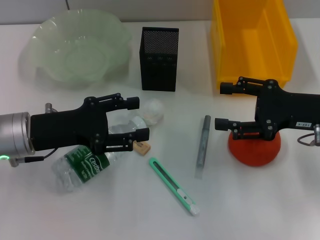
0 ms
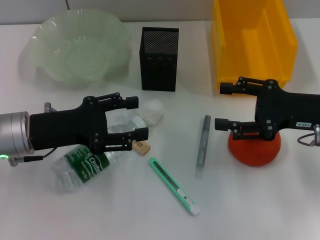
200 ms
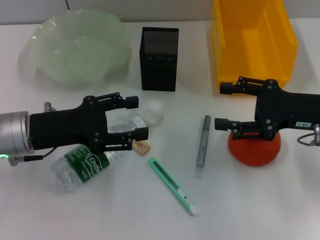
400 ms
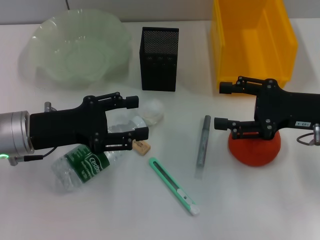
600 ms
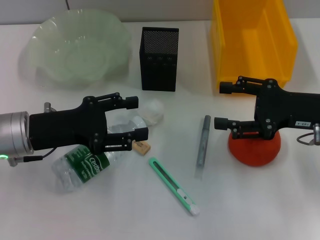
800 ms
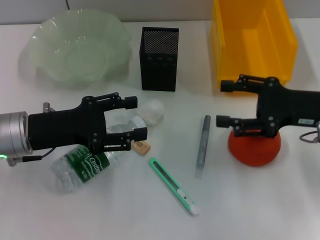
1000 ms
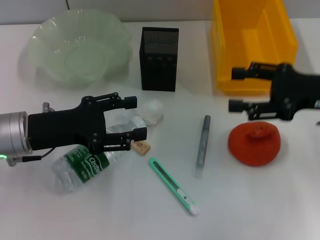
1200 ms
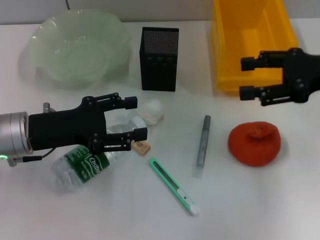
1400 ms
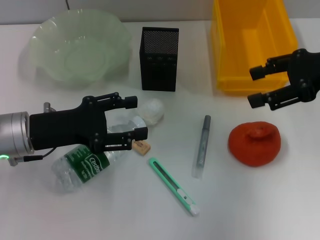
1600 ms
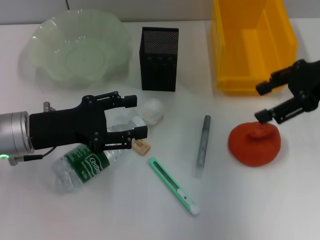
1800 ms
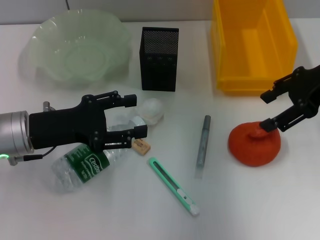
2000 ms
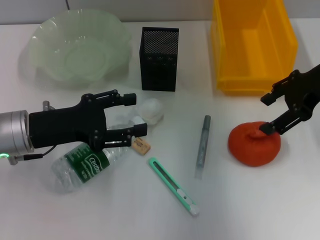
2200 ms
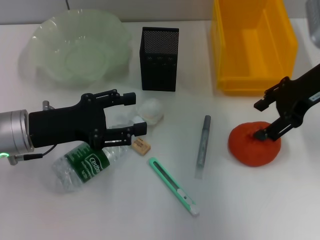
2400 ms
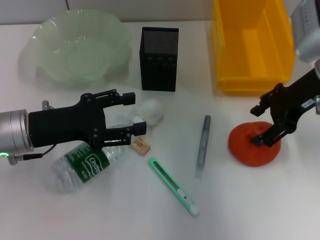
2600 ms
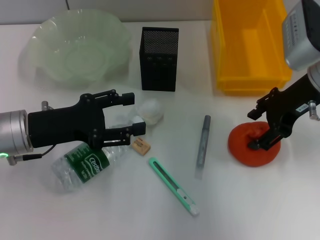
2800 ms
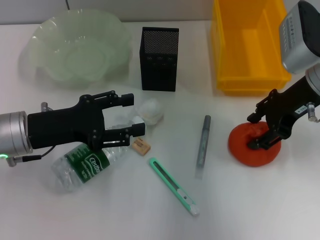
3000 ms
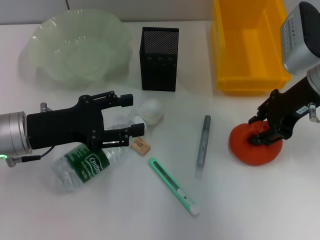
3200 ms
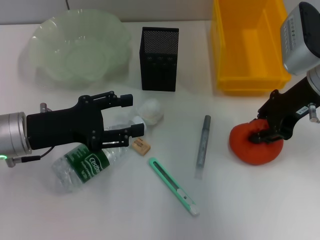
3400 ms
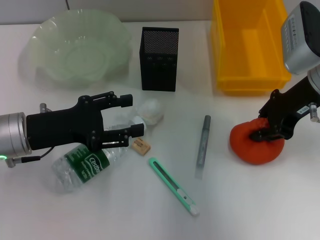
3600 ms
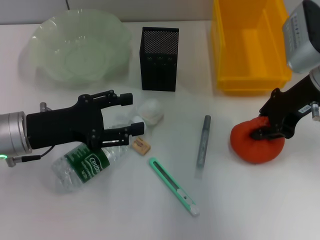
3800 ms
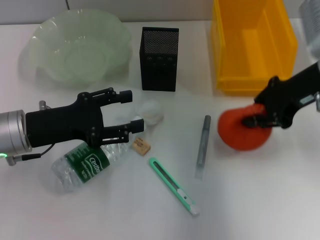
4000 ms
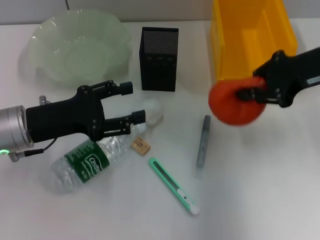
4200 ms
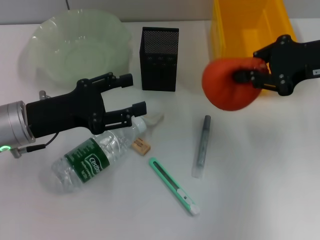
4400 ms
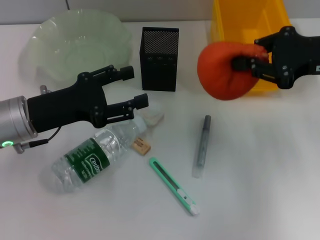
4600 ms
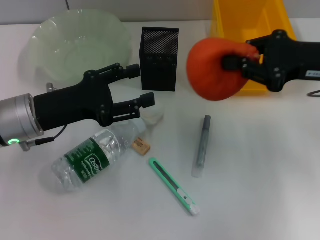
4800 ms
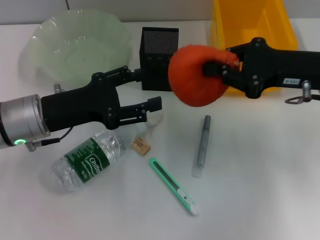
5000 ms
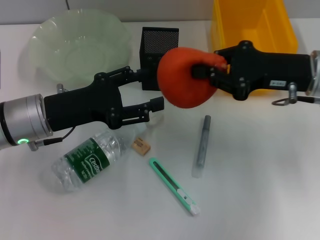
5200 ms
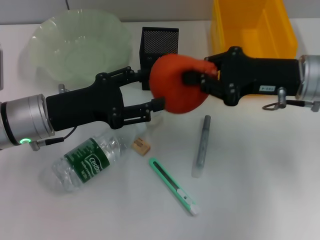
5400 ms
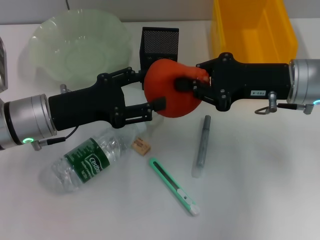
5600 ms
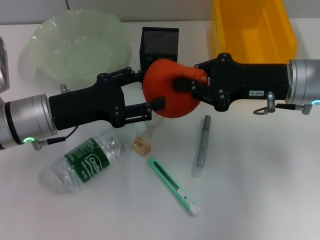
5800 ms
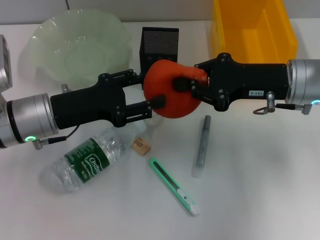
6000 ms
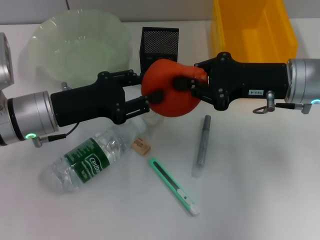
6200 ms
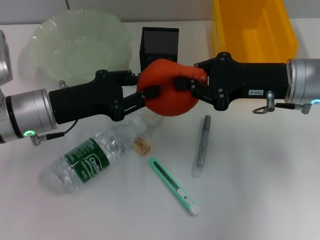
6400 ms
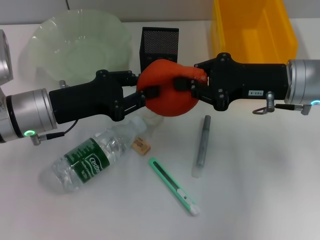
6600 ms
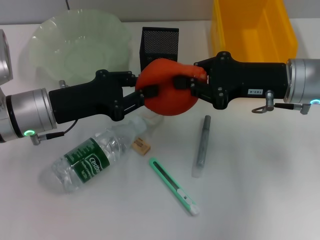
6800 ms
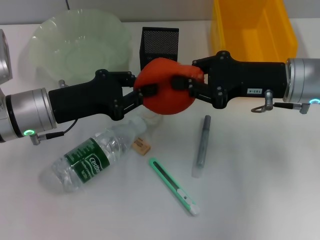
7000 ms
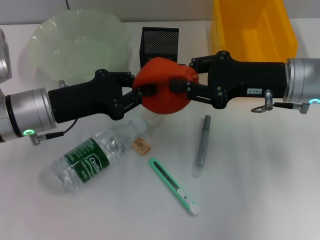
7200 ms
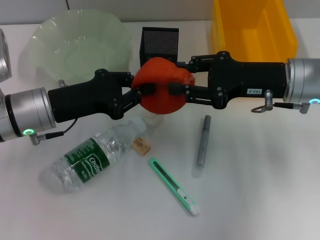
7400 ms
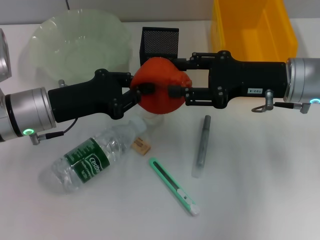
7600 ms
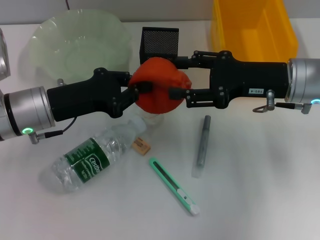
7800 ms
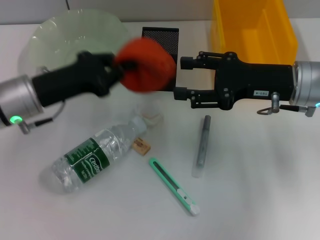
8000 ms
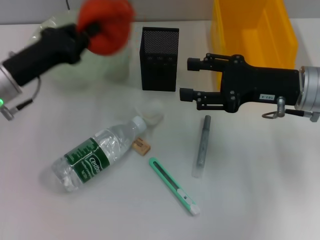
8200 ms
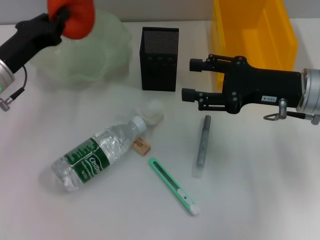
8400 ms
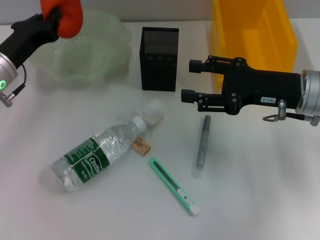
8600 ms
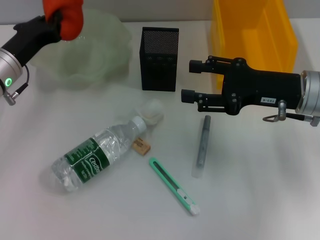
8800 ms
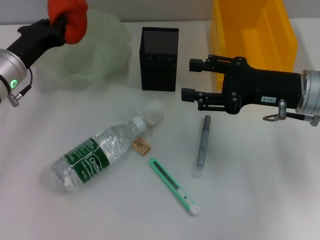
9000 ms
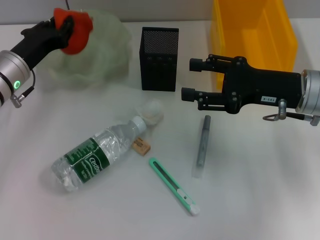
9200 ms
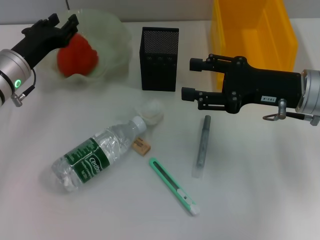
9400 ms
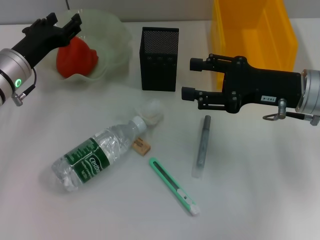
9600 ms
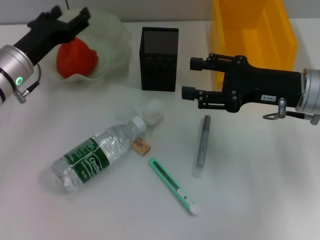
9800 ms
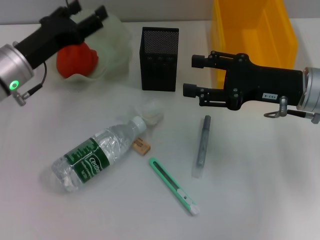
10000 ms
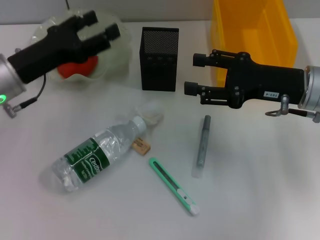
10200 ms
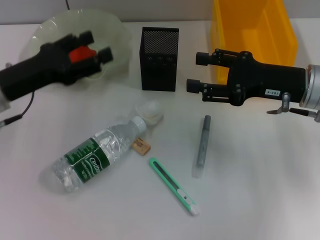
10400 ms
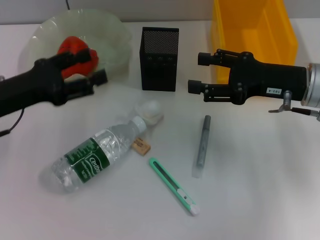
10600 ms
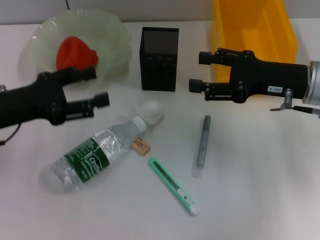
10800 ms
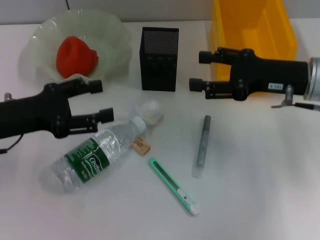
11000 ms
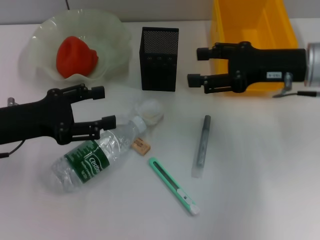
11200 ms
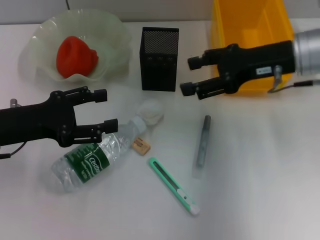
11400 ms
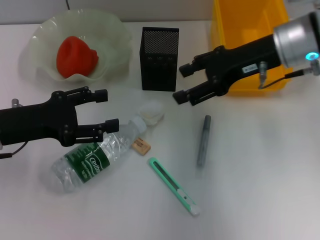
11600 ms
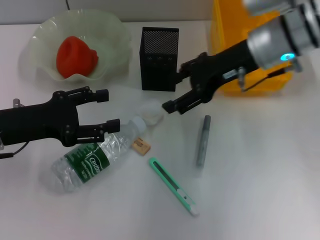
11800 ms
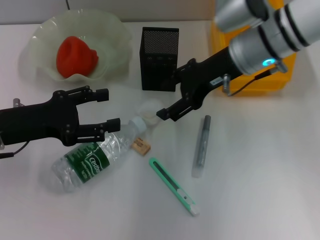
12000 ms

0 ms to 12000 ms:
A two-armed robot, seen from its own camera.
Step, 0 ms to 3600 ms: Grab the orange with the right hand.
Step, 3800 ms to 7800 ms: Pass the orange from the right hand to the left hand.
Step, 8000 ms to 9200 ms: Place the orange into the fruit bowl with the left hand.
0 ms to 1600 ms: The right gripper moves upward, roughly 10 cm.
1600 ms to 3000 ms: The right gripper shifts roughly 5 cm to the left.
3000 ms to 4400 ms: The right gripper moves roughly 5 cm, and closes.
4400 ms to 6000 ms: The right gripper travels to the left and downward by some 10 cm.
6000 ms to 7600 ms: The right gripper opens its fingers. The left gripper closes.
7600 ms to 9000 ms: The right gripper opens. The left gripper travels forward by some 5 cm.
9000 ms to 10400 ms: The left gripper moves backward, roughly 5 cm, and opens its fingers.
10400 ms to 12000 ms: The right gripper goes approximately 15 cm to the left, forward and upward.

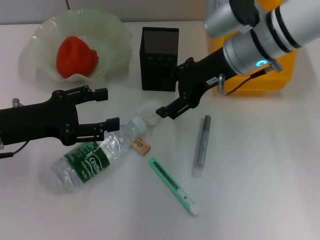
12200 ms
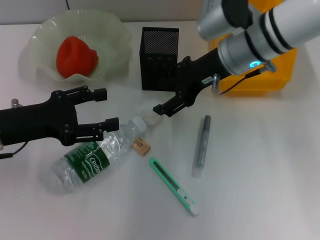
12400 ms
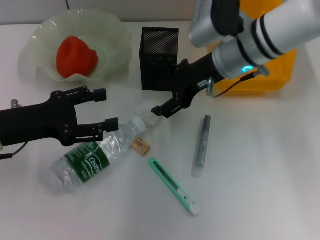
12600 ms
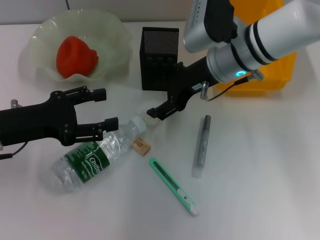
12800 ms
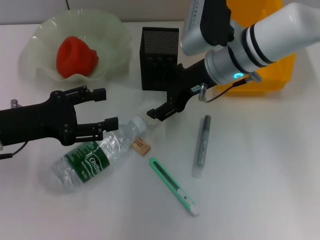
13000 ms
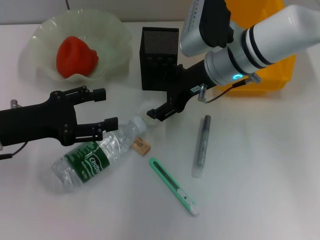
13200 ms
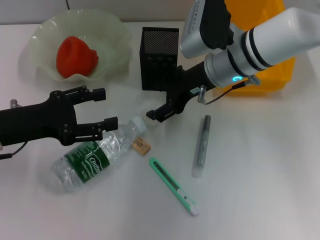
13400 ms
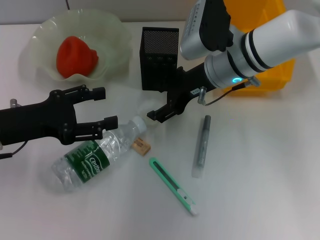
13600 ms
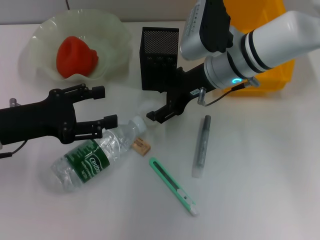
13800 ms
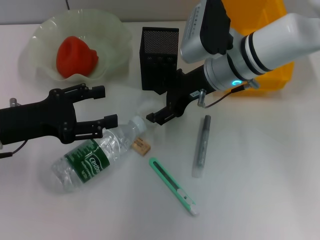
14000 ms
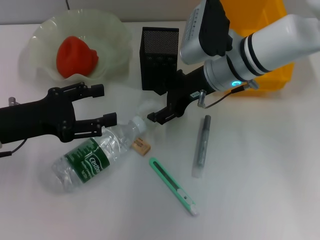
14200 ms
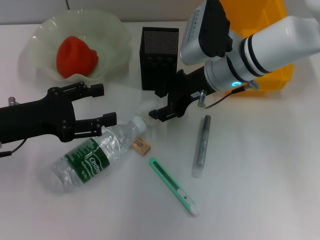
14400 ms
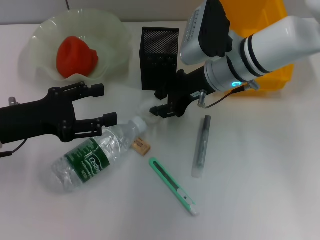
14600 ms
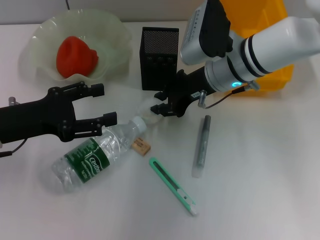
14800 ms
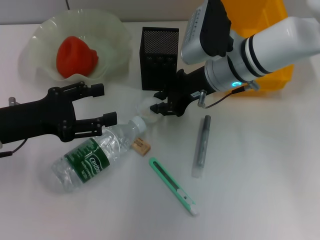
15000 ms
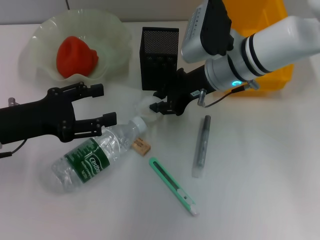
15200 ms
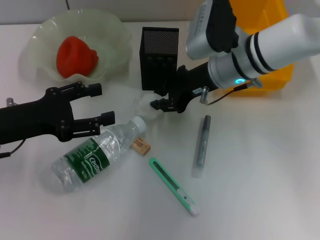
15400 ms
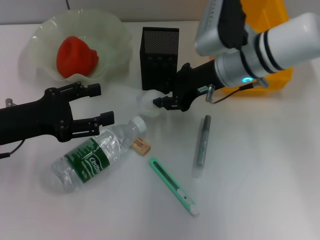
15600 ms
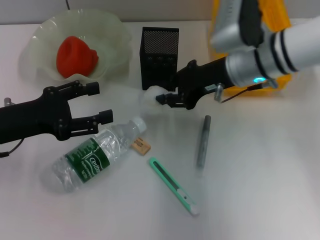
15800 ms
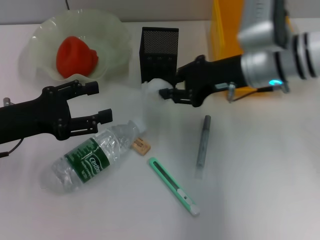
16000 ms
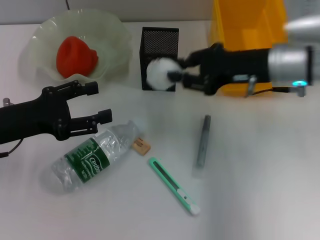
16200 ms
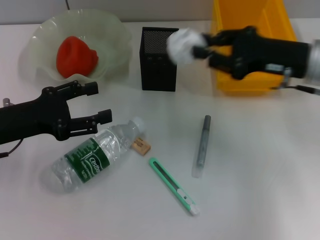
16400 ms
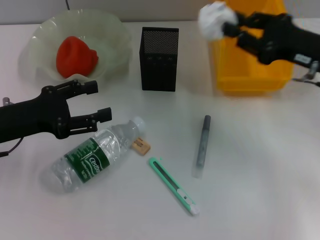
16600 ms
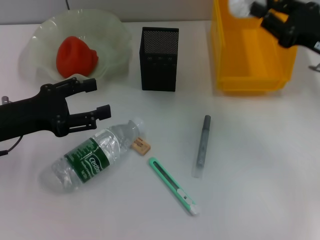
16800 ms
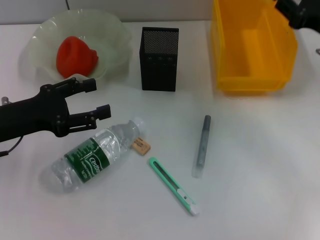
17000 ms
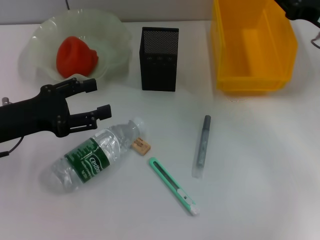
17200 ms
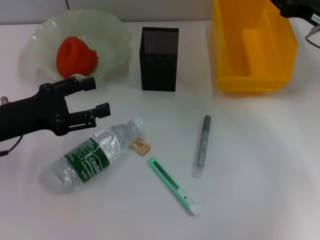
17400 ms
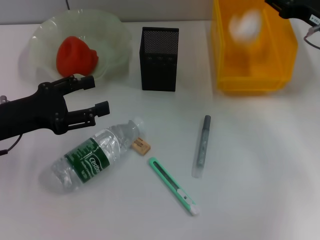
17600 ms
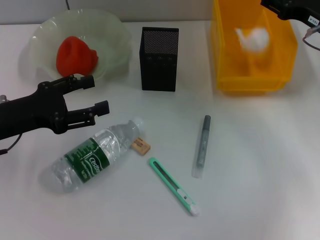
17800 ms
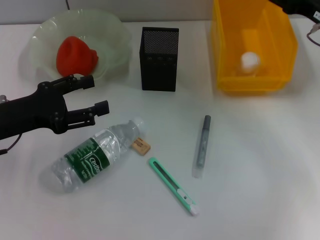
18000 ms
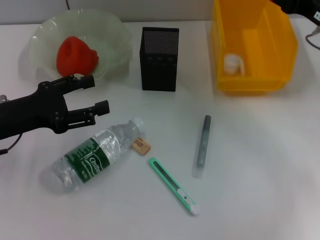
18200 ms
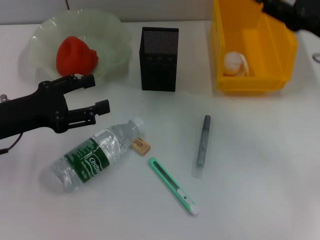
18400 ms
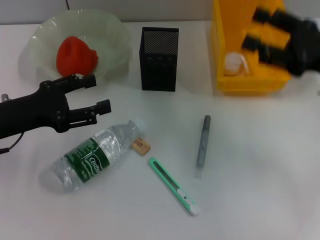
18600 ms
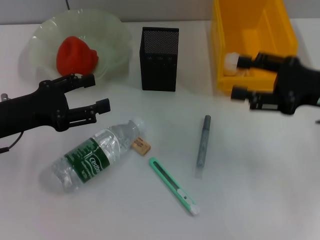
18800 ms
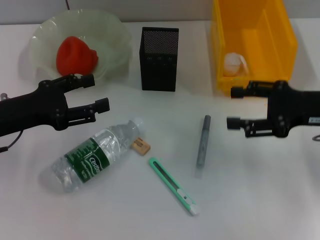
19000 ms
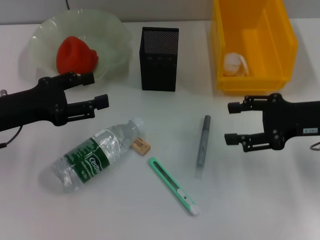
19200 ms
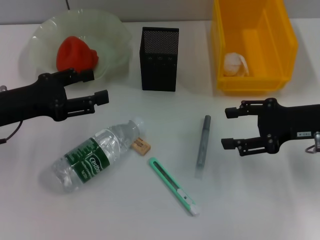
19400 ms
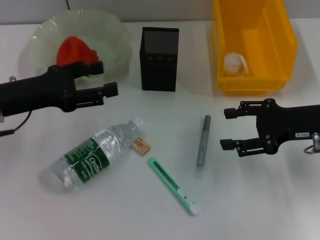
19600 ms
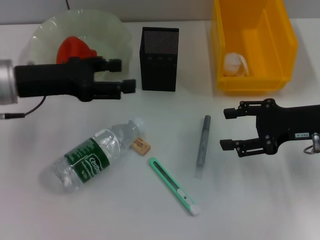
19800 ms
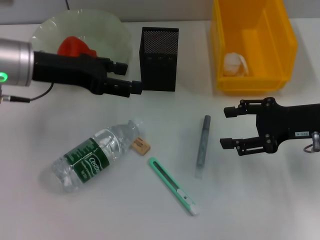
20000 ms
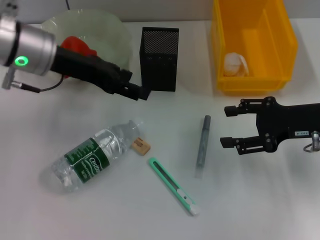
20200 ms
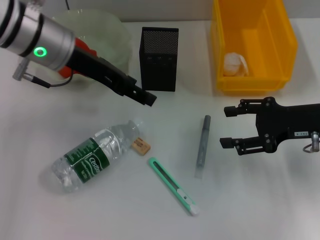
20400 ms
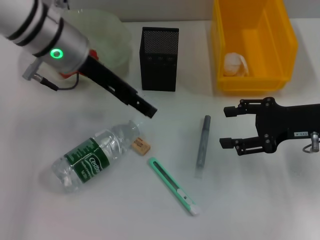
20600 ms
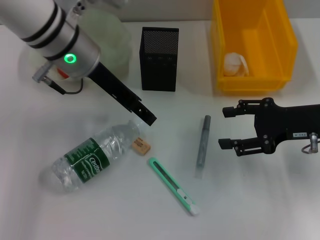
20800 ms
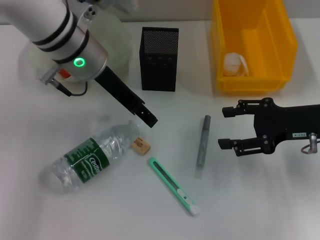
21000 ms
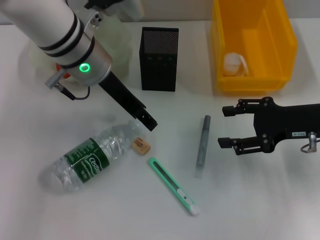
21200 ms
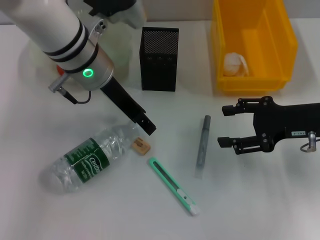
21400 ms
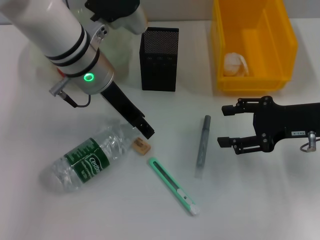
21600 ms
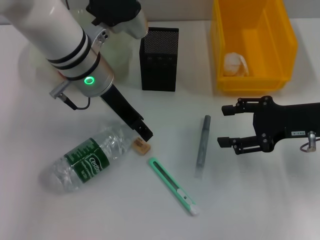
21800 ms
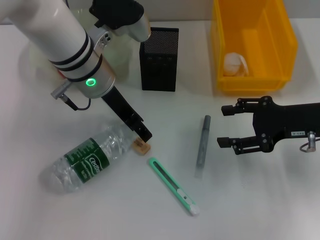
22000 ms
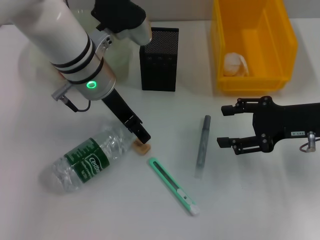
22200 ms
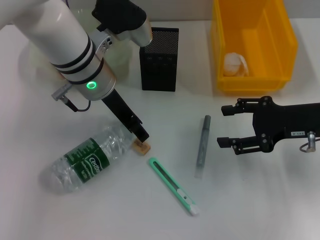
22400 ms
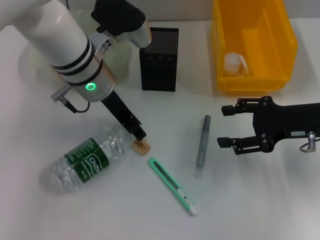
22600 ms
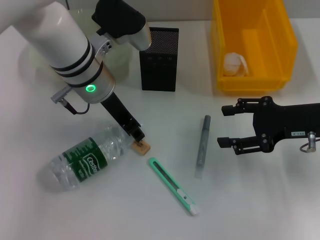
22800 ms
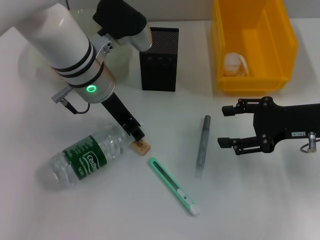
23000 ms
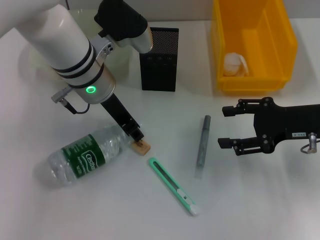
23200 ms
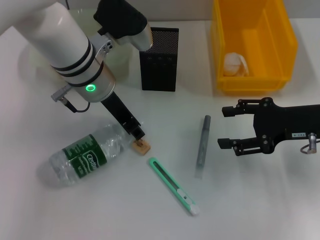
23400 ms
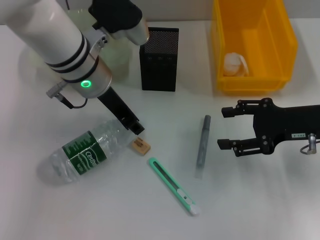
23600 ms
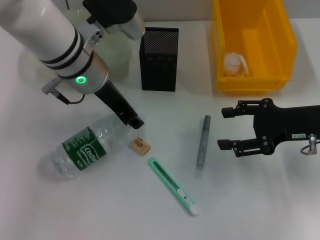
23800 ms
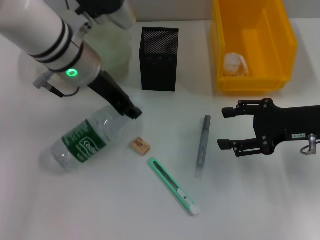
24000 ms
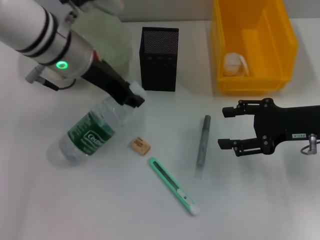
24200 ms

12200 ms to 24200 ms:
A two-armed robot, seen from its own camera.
Step, 12200 ms to 15200 ms: Grab the paper ball with the right hand.
Step, 15400 ms to 18000 ms: Place the paper ball into the trash can with the right hand.
Step, 18200 ms to 23200 ms: Grab the water bottle with the left hand.
12200 ms to 13800 ms: The grippers stay close to where they were, moving slightly.
13800 ms to 15200 ms: The right gripper closes up.
15200 ms to 16600 ms: The right gripper moves to the right and backward, roughly 15 cm.
16600 ms to 18200 ms: The right gripper opens.
18200 ms to 19800 ms: The right gripper travels backward by approximately 5 cm. Meanwhile the left gripper shifts roughly 5 cm forward.
19800 ms to 21200 ms: The left gripper is displaced to the right by roughly 15 cm.
21200 ms to 22600 ms: The grippers move only a little.
22600 ms to 24200 ms: The left gripper closes up.
